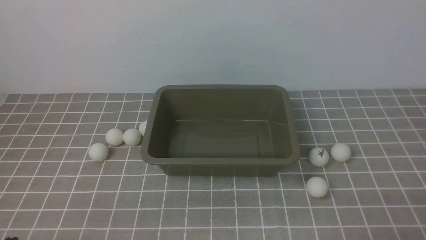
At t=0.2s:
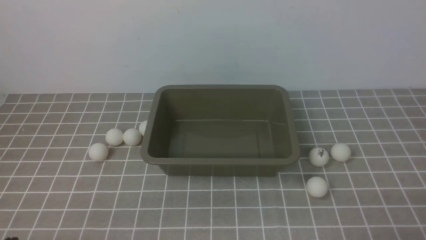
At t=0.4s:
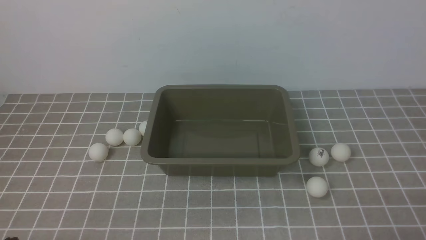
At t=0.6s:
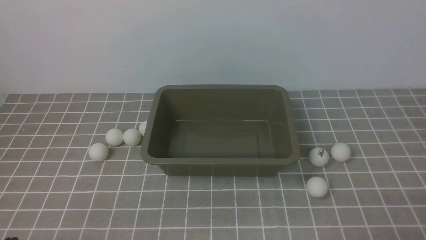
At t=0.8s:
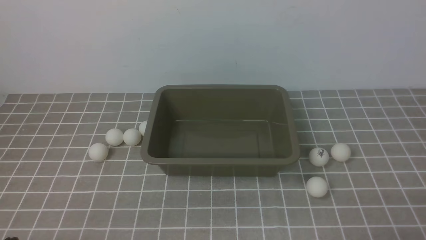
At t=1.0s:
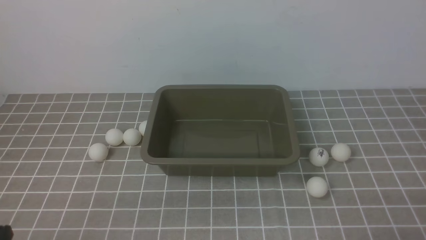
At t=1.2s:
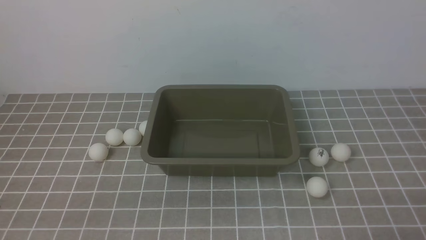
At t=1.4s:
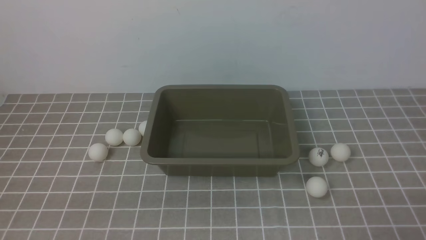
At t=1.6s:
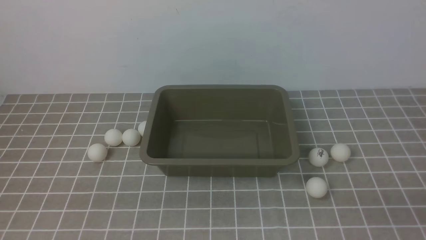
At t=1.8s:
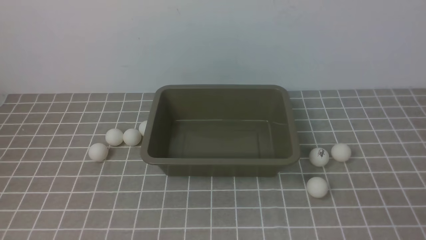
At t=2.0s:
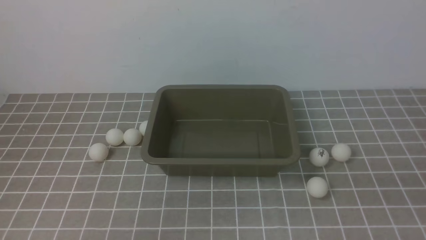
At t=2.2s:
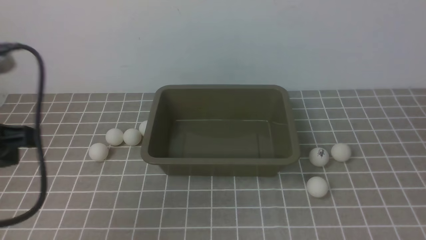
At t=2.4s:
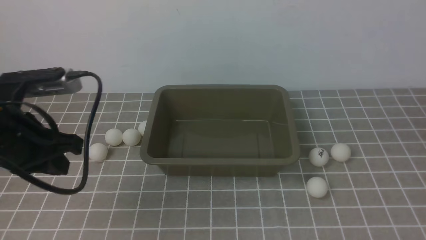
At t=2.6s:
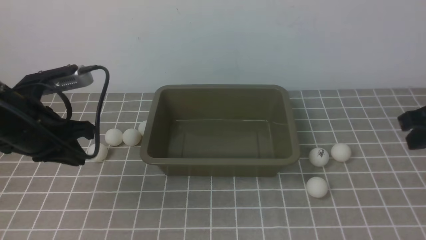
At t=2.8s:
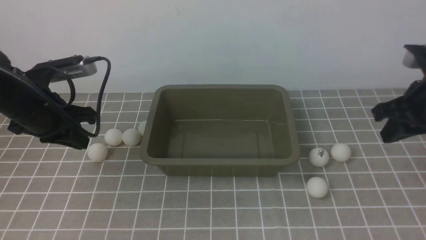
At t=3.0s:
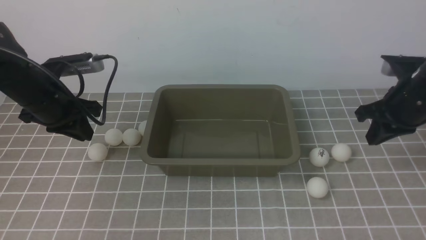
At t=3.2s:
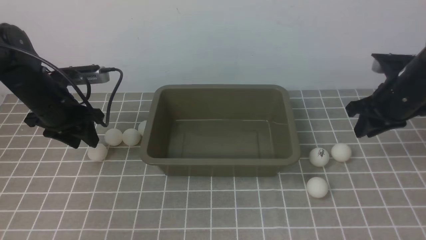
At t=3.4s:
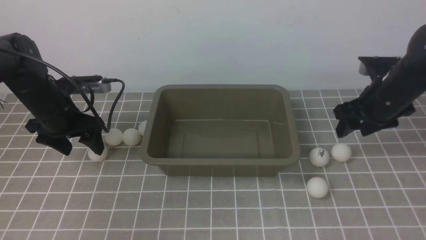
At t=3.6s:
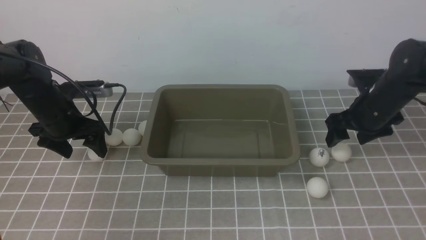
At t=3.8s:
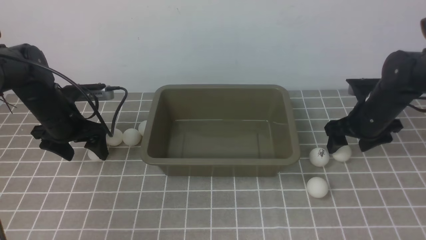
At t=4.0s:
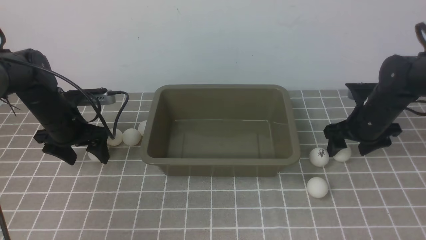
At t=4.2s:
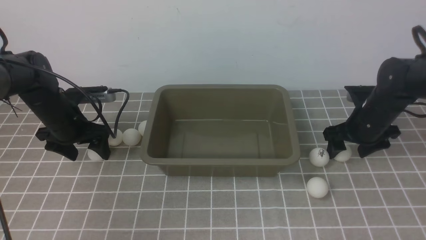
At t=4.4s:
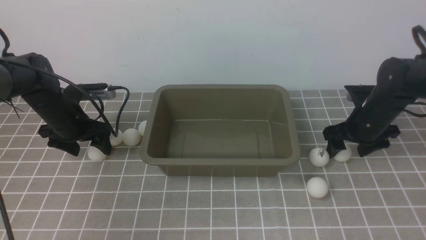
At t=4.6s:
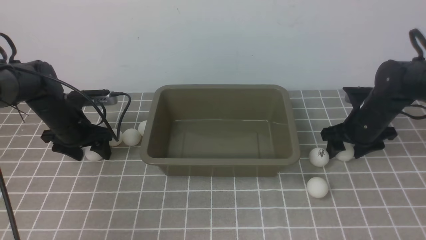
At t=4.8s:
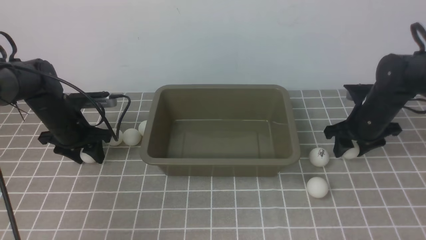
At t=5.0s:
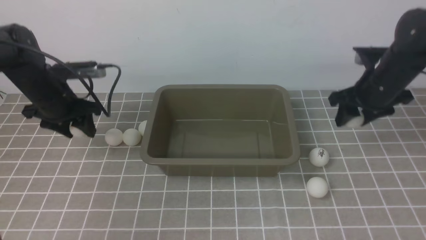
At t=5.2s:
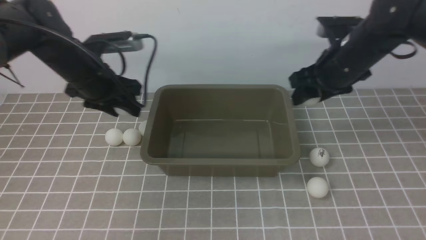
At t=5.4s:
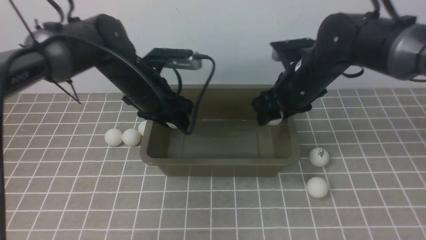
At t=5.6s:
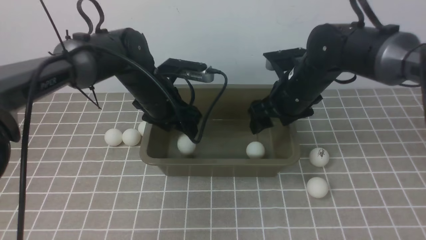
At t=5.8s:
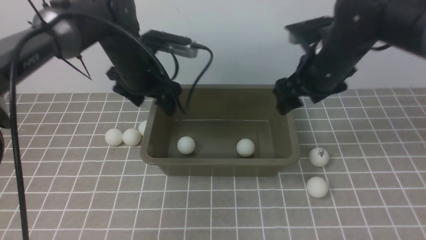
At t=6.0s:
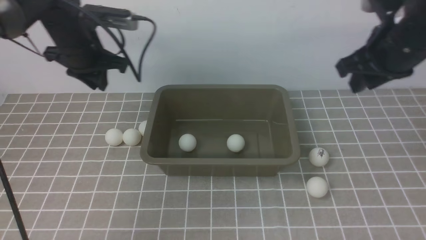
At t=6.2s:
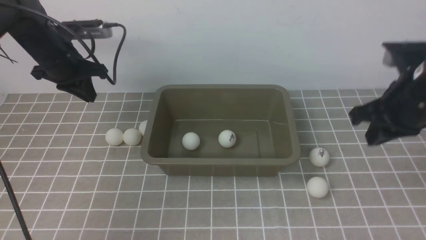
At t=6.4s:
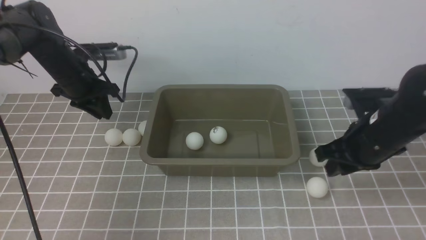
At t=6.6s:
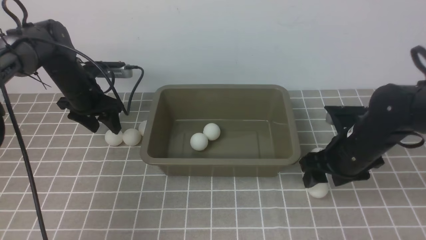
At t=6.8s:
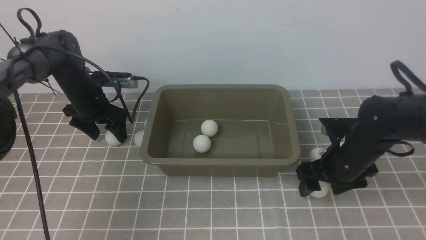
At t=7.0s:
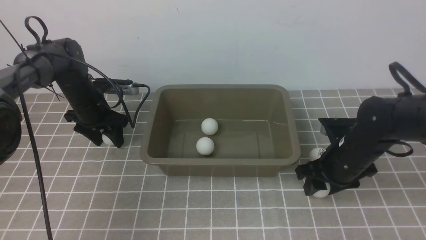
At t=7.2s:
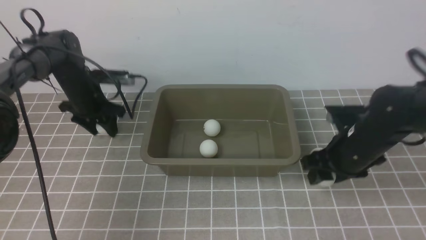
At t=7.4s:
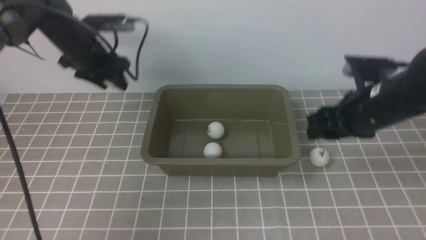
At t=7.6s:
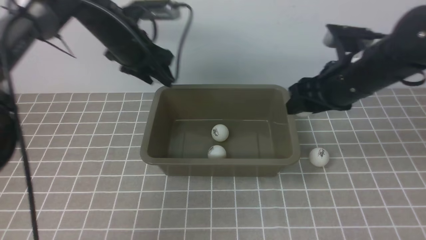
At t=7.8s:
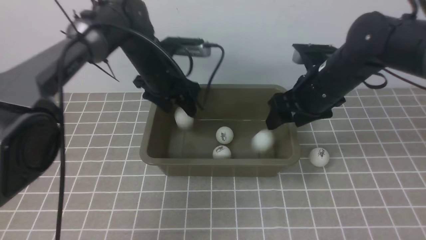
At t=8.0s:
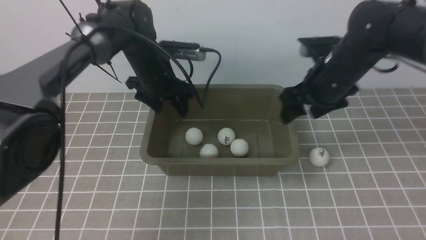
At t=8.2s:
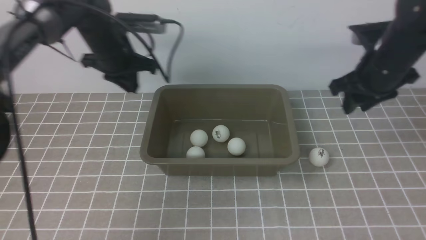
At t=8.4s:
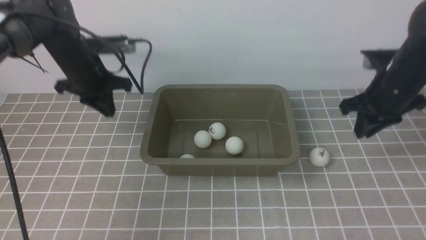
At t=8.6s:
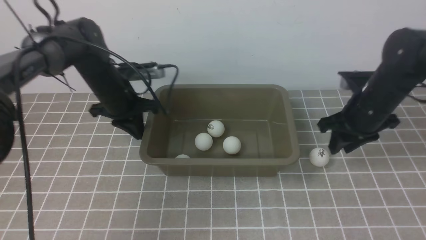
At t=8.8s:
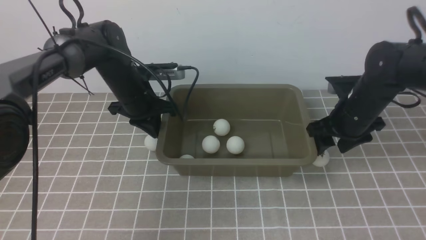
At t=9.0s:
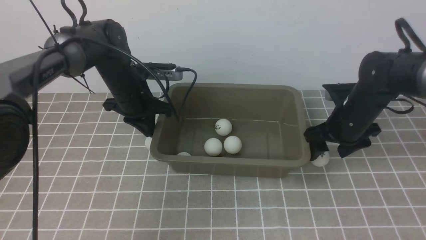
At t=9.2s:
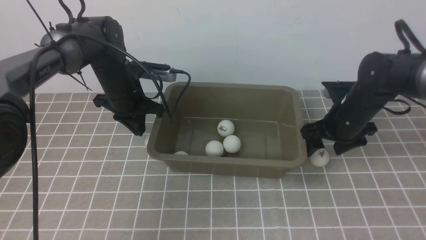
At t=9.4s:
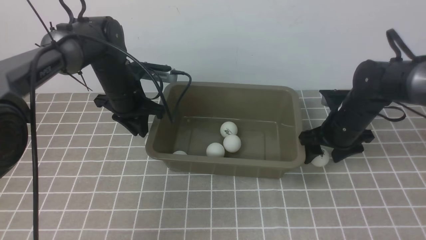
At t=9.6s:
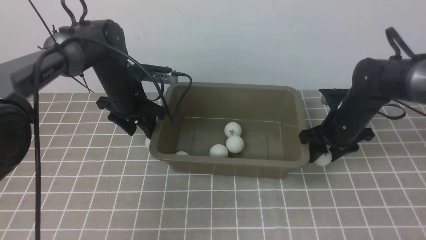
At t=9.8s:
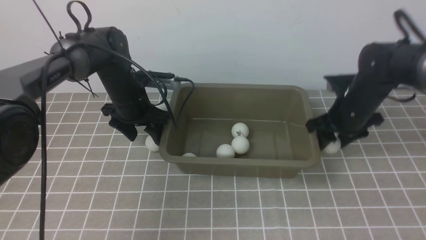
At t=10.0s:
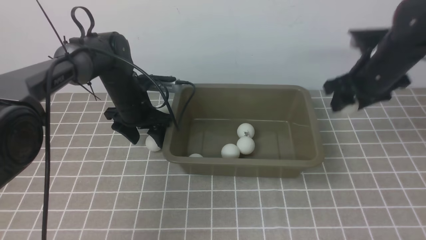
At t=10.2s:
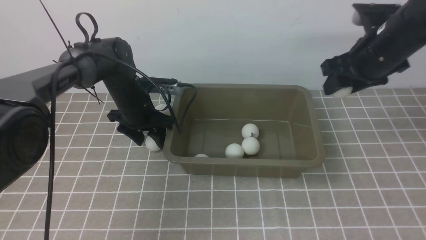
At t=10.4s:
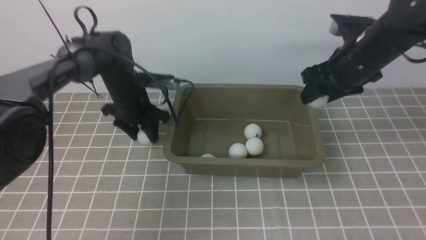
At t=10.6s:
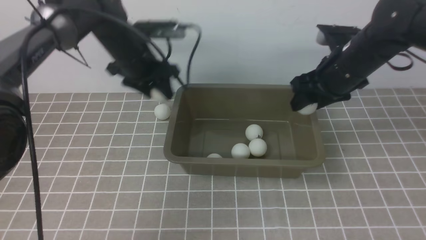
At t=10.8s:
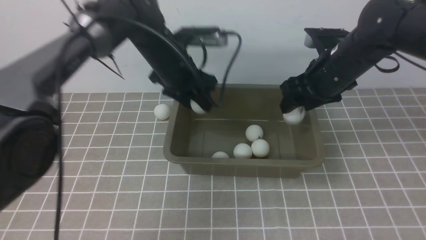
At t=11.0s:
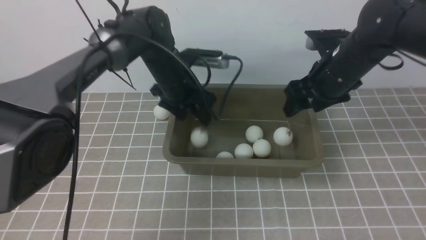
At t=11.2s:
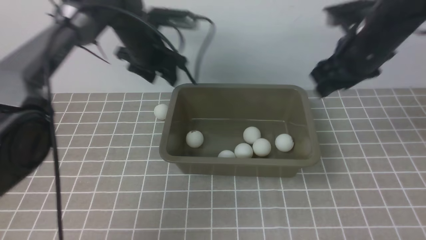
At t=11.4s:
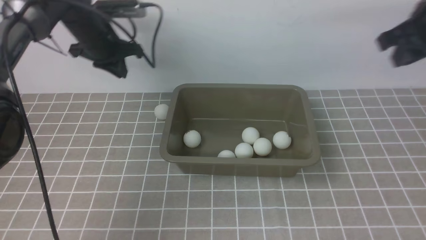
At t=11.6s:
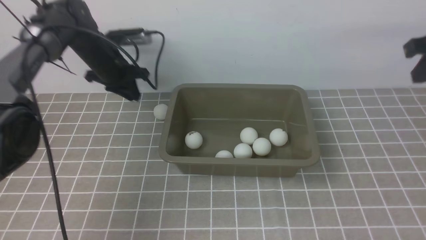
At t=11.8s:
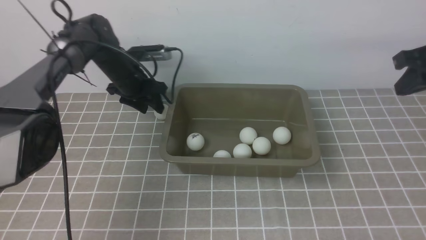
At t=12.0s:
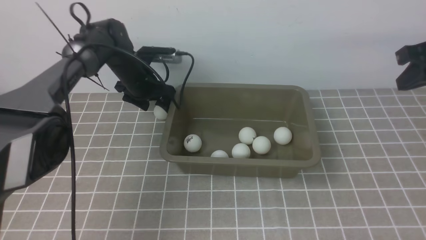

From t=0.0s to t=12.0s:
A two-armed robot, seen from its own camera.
Step, from t=0.0s to t=5.0s: use the left arm to clamp the table tennis ball closest to it.
Step, from t=5.2s to t=5.6s: use the left arm to put the table tennis ball into the box.
Step, from t=5.8s to t=7.2s: use the left arm to clamp the table tennis ball closest to it.
Step, from t=7.4s to t=7.8s: use the left arm to put the table tennis ball into the box.
Step, from t=8.0s to t=9.8s: use the right arm to clamp the table tennis ball closest to it.
Step, from t=10.0s to t=10.4s: use the left arm to clamp the table tennis ball closest to it.
Step, from t=10.6s to t=10.8s: use the right arm to put the table tennis ball into the box.
From t=1.6s to t=3.0s: Both grippers travel together forward, some 30 cm.
From t=3.0s to t=4.4s: Both grippers move downward and forward, some 10 cm. The right gripper opens its fingers, while the left gripper opens up.
From t=4.4s to t=6.0s: The right gripper travels upward and backward by approximately 20 cm, and closes its fingers; the left gripper shifts about 15 cm upward and to the right, and closes.
From t=6.0s to t=7.6s: The left gripper goes some 5 cm to the right, and travels downward and back again, about 10 cm each way. Meanwhile the right gripper goes downward and returns, some 15 cm each way.
From t=7.6s to t=9.0s: The grippers both shift downward by some 10 cm. The right gripper closes and opens again; the left gripper moves about 5 cm to the left and comes back, and closes its fingers.
From t=9.0s to t=10.4s: The right gripper heads upward, covering roughly 10 cm; the left gripper opens its fingers.
From t=10.4s to t=12.0s: The right gripper is displaced to the right, upward and backward by about 15 cm, and closes its fingers; the left gripper moves forward, some 5 cm, reaches some 5 cm to the right, then returns, and closes, then opens again.

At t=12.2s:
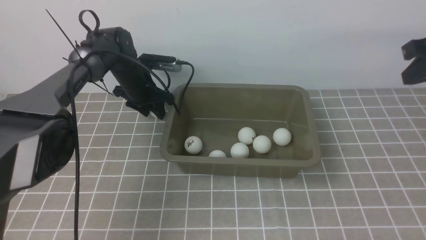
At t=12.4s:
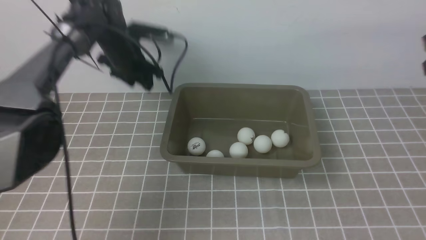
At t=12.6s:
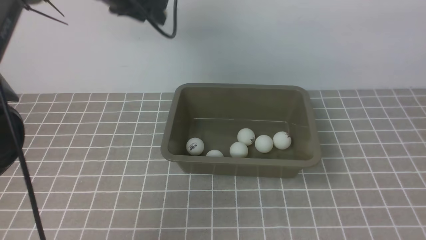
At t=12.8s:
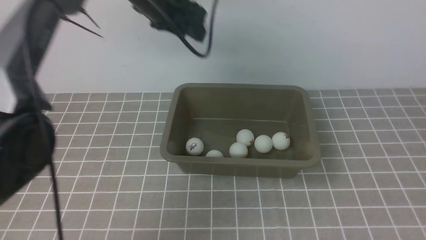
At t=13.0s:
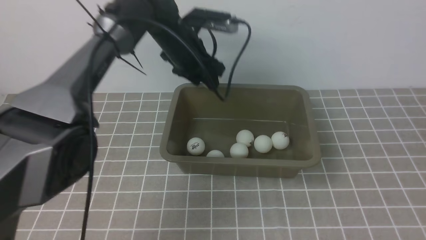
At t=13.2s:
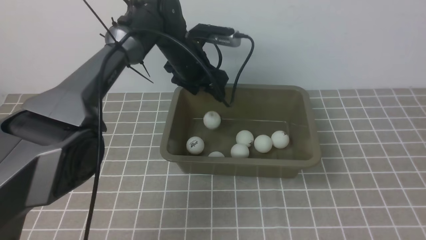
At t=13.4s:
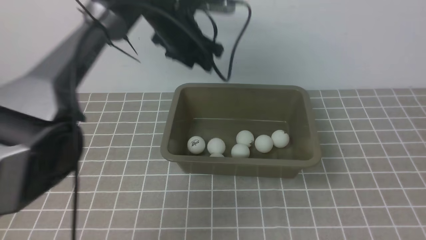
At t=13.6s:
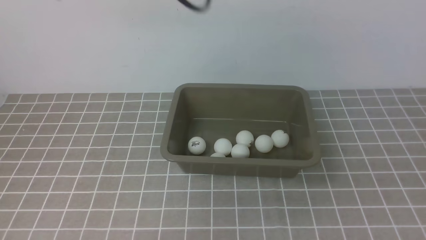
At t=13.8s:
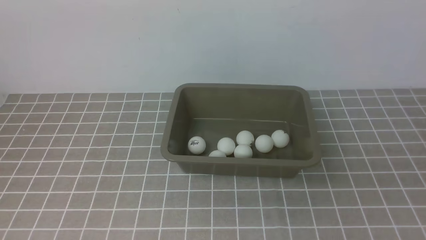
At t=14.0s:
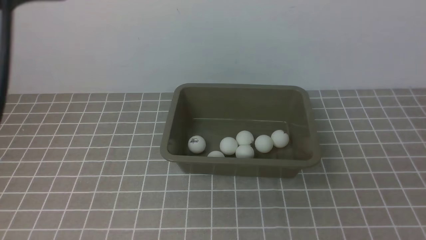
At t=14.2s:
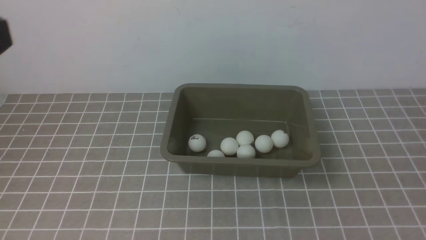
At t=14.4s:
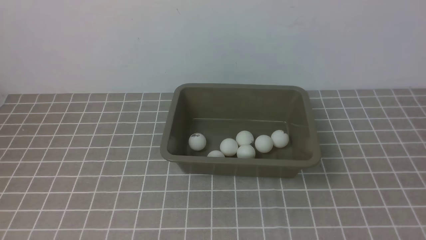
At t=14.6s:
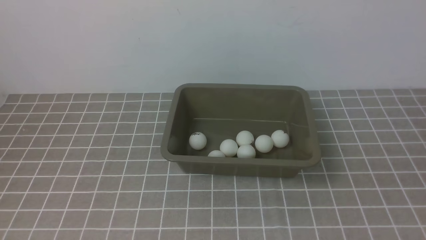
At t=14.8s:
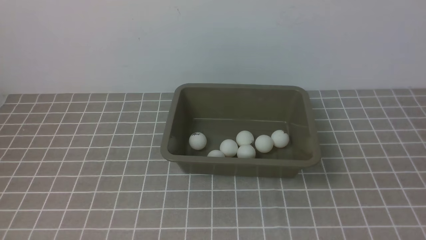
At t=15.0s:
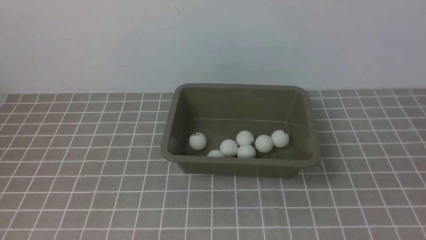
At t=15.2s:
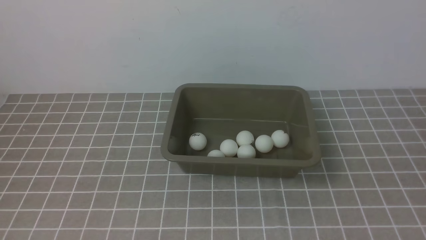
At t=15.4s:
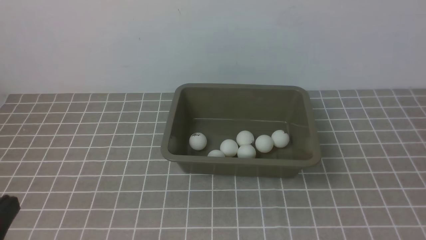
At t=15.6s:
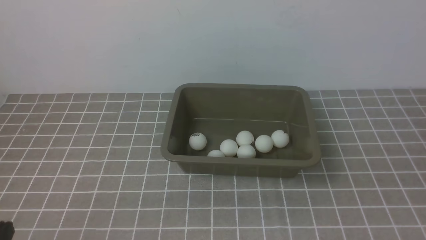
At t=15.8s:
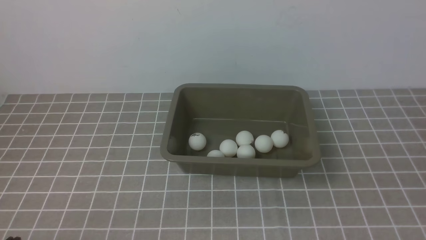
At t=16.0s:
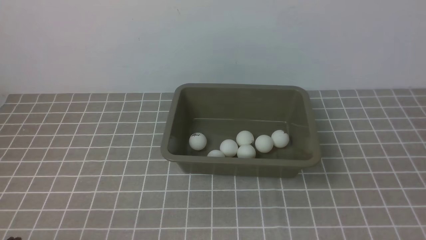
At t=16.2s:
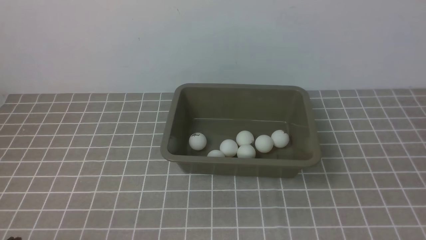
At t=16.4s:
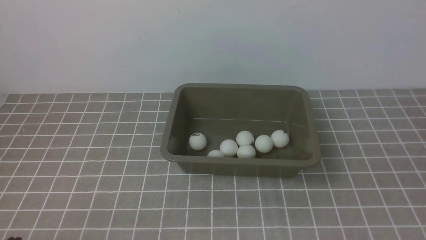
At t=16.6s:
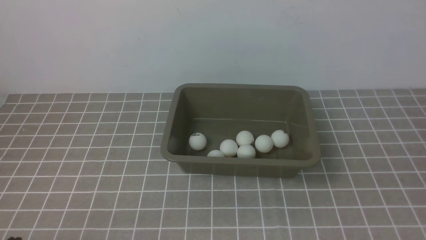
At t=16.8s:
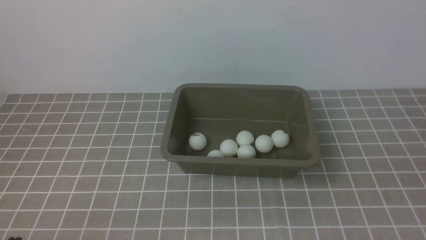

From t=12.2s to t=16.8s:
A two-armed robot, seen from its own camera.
Step, from t=12.6s to t=13.2s: use the left arm to put the table tennis ball into the box.
From t=12.2s to t=13.8s: The left gripper moves up and down over roughly 35 cm, changing direction 2 times, and closes up. Meanwhile the right gripper heads backward, covering roughly 30 cm.
From t=13.8s to t=15.2s: The left gripper moves downward, backward and to the left, some 30 cm.
